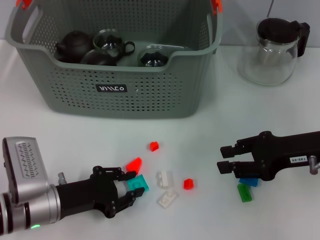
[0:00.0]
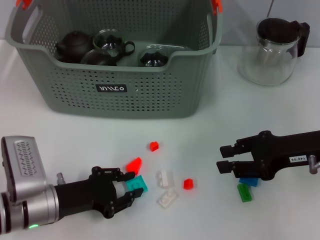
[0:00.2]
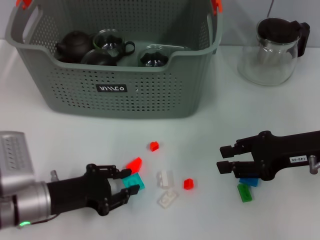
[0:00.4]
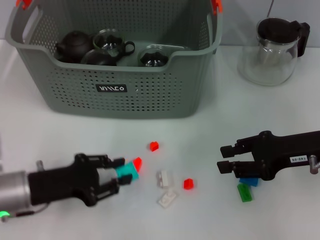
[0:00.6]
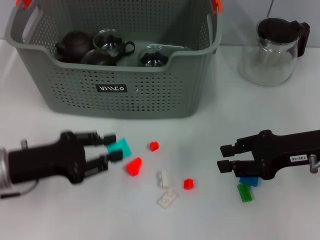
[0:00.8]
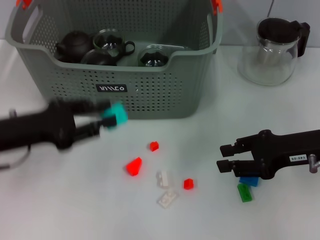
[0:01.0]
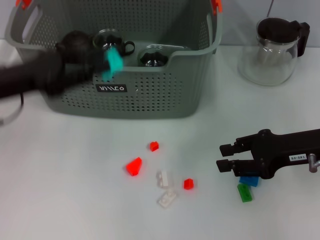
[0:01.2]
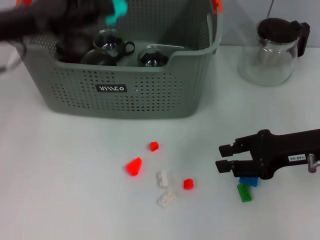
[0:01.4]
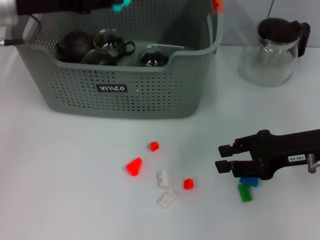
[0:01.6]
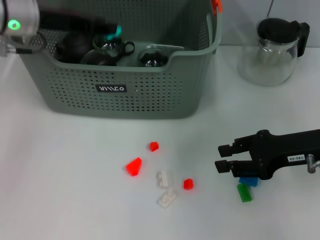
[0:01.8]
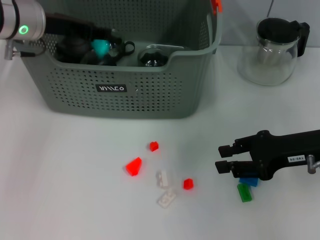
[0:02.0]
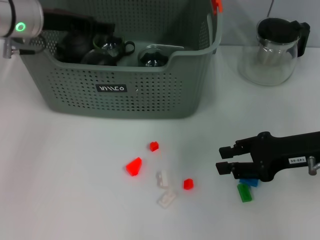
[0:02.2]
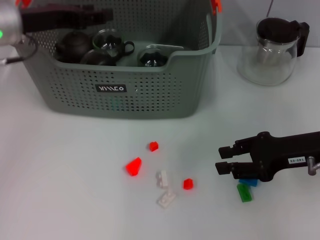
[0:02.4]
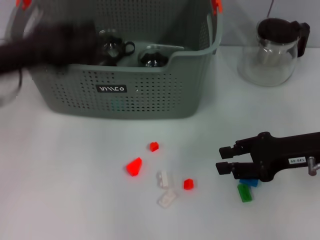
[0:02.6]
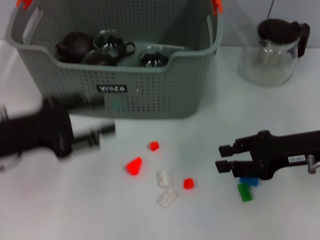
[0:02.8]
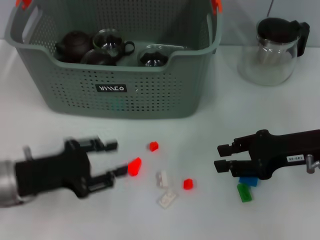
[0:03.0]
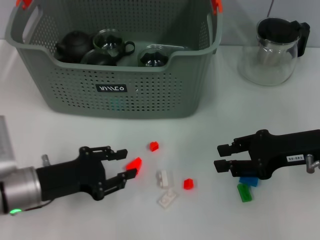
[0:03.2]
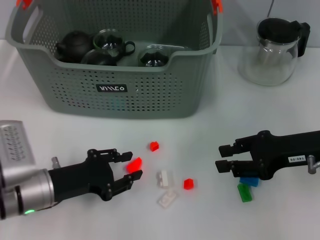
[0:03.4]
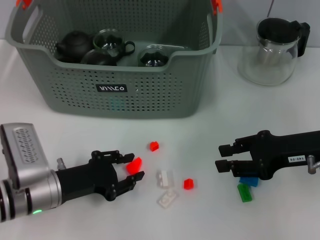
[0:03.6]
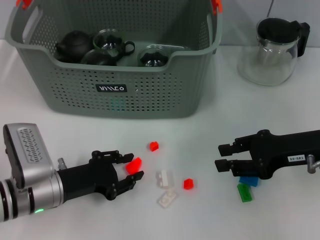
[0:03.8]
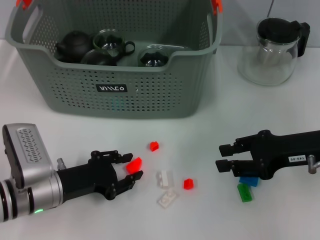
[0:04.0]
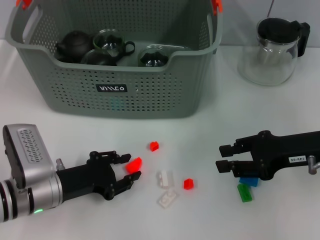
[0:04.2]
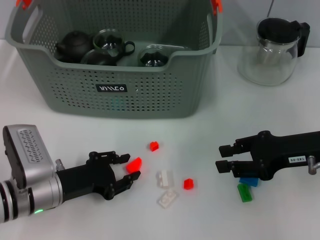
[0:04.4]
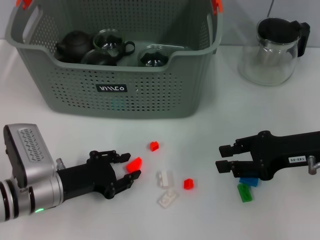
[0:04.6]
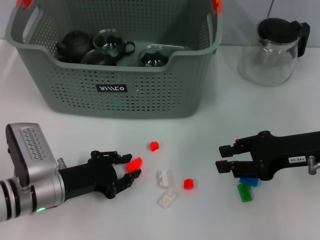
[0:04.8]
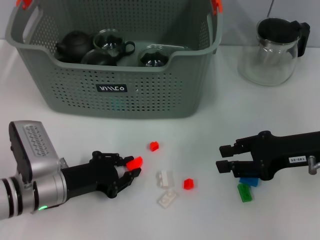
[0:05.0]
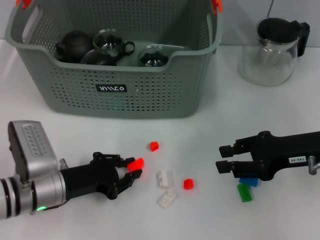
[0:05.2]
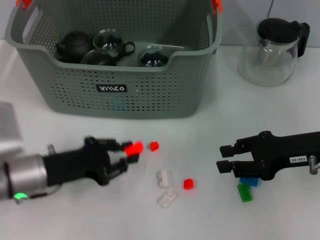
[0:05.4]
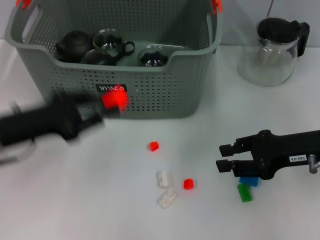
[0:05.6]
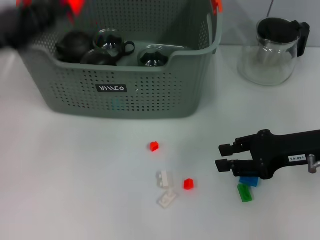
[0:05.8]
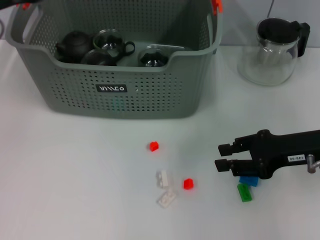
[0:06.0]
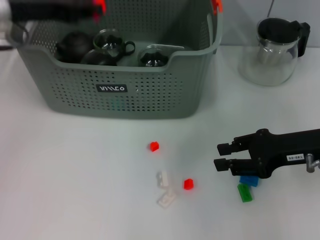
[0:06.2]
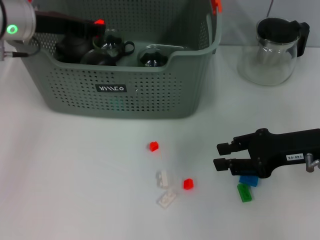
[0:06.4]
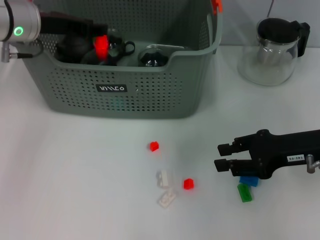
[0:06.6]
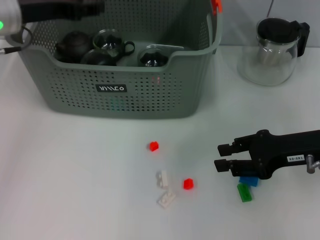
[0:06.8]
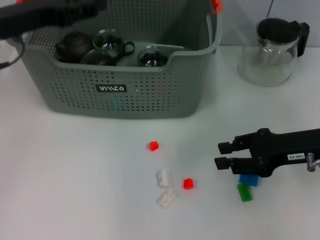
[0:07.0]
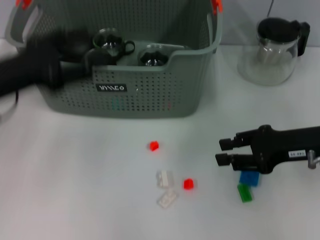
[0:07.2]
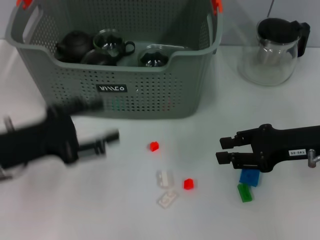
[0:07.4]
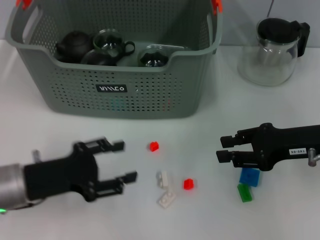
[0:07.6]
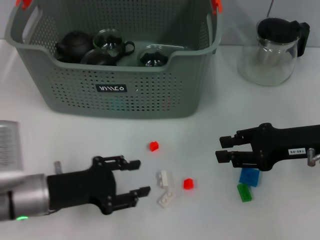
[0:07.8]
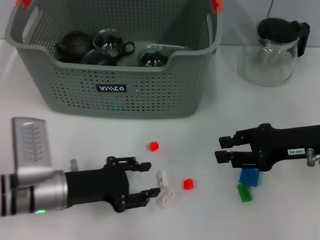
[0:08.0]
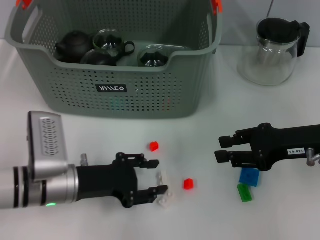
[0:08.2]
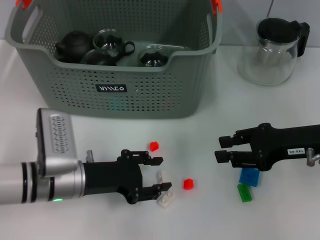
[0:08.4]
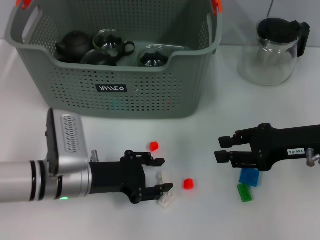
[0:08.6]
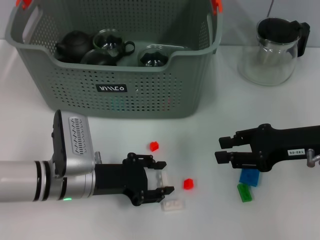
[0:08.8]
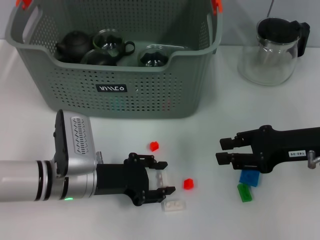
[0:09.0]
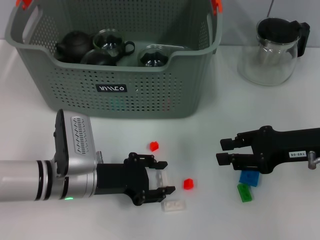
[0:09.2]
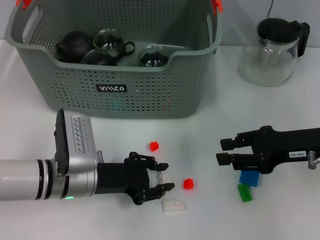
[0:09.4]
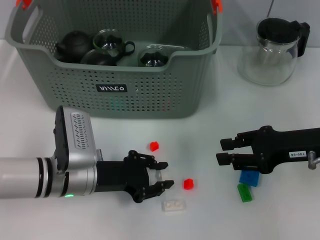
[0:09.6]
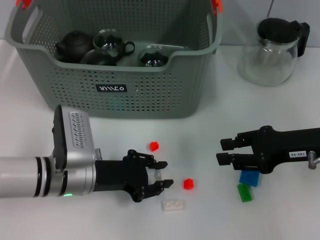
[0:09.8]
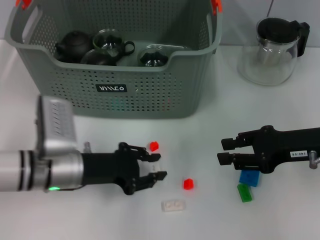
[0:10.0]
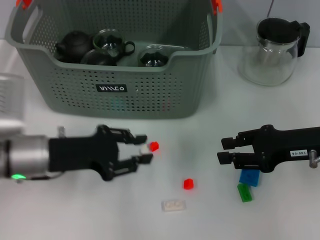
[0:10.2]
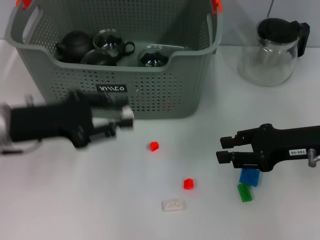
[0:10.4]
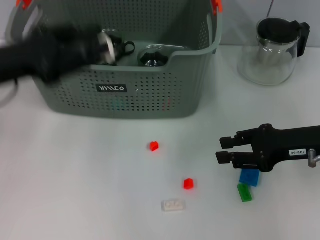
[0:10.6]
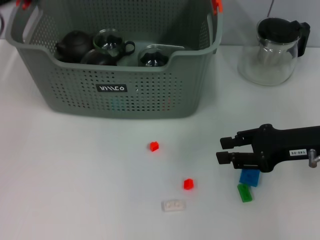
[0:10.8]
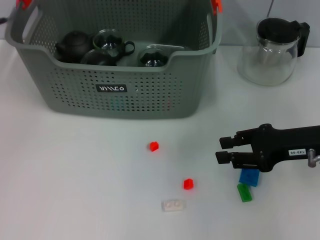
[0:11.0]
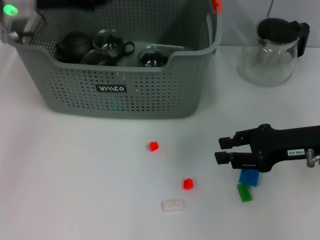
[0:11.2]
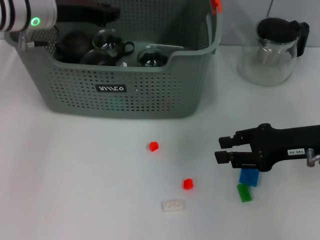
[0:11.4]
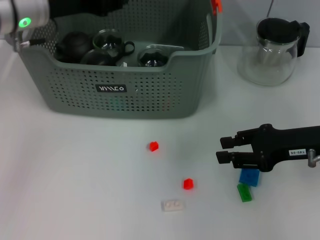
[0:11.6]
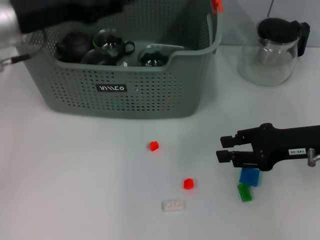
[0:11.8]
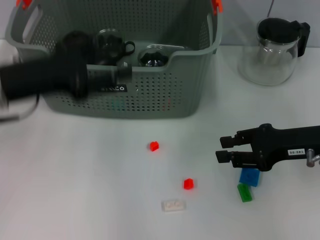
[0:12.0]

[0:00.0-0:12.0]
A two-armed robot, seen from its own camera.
Task of the whole recording: pick up the teacup on the table and place it into the storage bin, pick up the block on the table and place it into the storage bin.
Step, 0.0 to 2.2 s: Place the light blue block in the storage box with left gripper.
Step, 2.4 to 5.0 s: Grasp the orange block with left gripper.
Step, 5.2 to 6.6 s: Place the orange block in the storage box with left gripper.
Step, 6.8 to 9.4 s: Grasp the white block with left gripper.
Step, 9.6 to 11.0 s: Place the white block in the storage box with left gripper.
0.0 to 1.6 s: The left gripper heads upward and forward, covering about 25 cm.
1.6 to 3.0 s: The left gripper moves backward and downward, approximately 20 cm.
3.0 to 4.4 s: The left gripper heads downward, covering about 5 cm.
4.4 to 6.0 s: The left gripper is displaced upward and forward by roughly 25 cm.
6.0 to 7.6 s: The left gripper shifts some 20 cm downward and backward, and opens its fingers.
7.6 to 9.0 s: The left gripper heads to the right, covering approximately 10 cm.
9.0 to 10.4 s: The left gripper travels upward and to the left by about 15 cm.
10.4 to 12.0 s: The left gripper reaches about 15 cm forward, then returns.

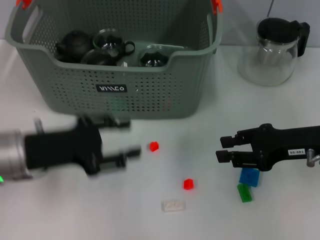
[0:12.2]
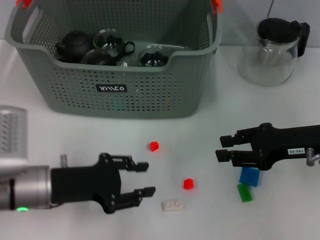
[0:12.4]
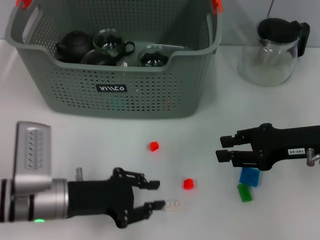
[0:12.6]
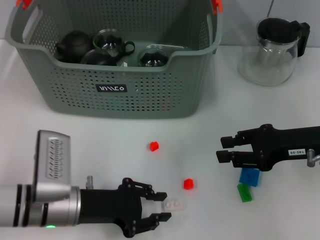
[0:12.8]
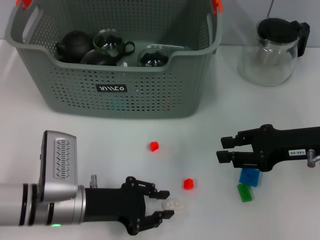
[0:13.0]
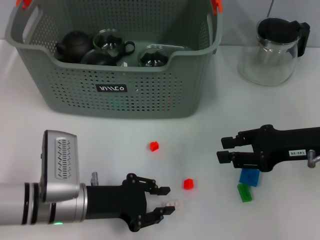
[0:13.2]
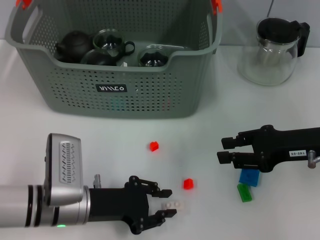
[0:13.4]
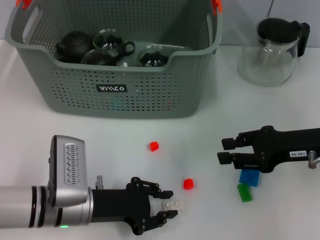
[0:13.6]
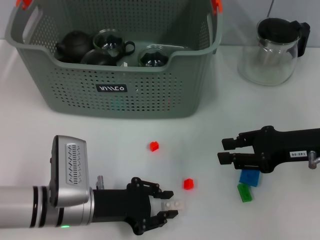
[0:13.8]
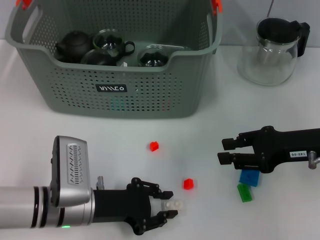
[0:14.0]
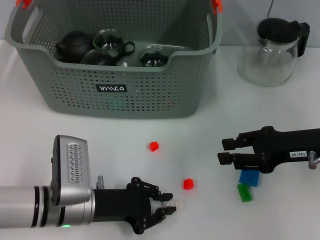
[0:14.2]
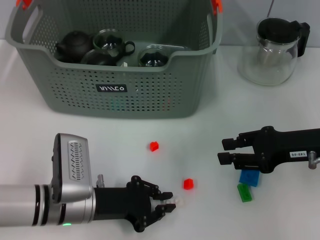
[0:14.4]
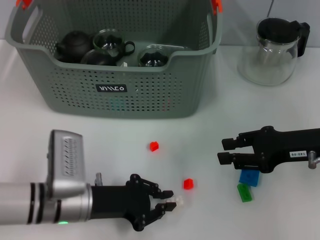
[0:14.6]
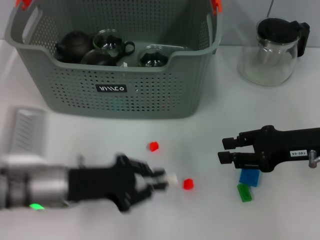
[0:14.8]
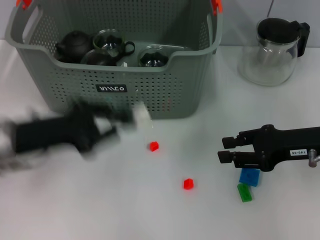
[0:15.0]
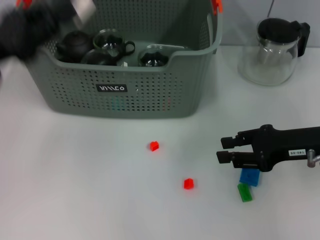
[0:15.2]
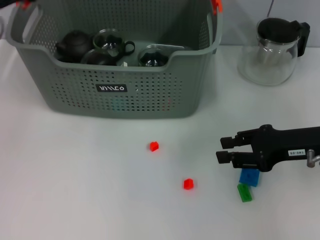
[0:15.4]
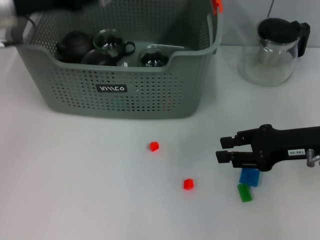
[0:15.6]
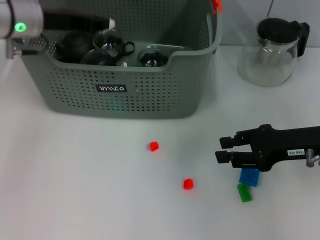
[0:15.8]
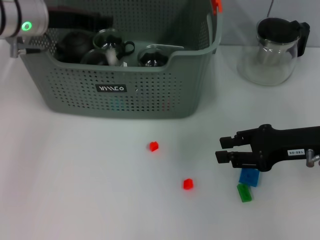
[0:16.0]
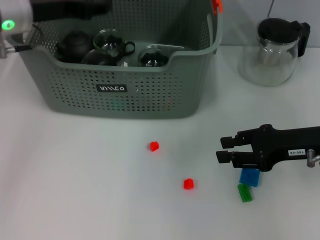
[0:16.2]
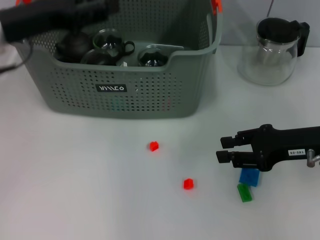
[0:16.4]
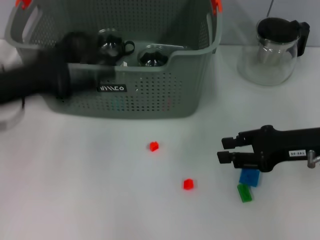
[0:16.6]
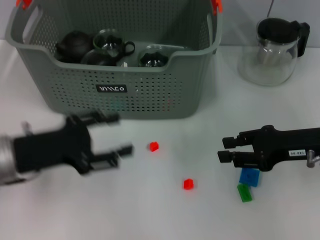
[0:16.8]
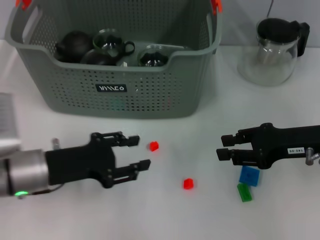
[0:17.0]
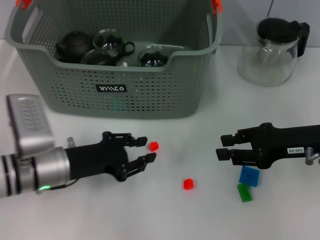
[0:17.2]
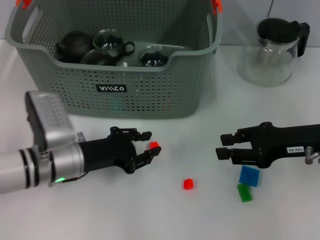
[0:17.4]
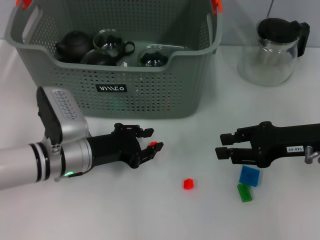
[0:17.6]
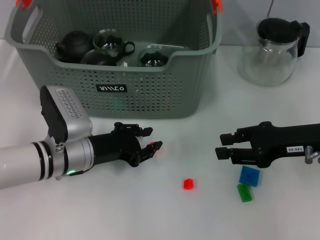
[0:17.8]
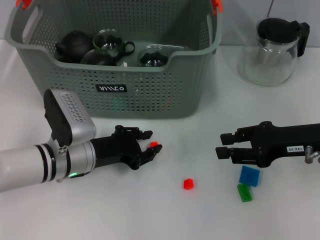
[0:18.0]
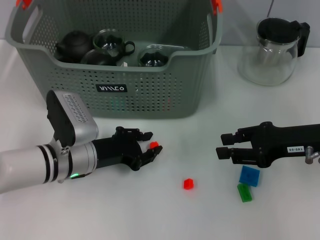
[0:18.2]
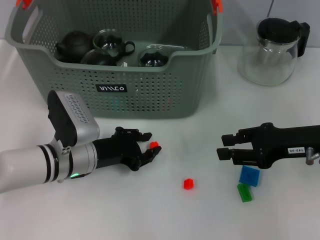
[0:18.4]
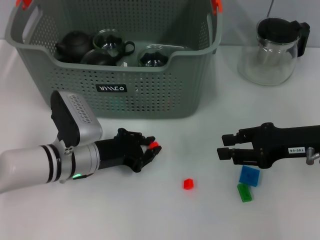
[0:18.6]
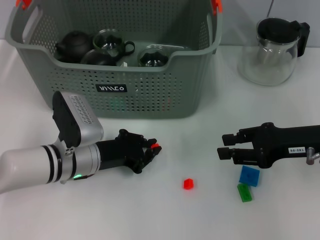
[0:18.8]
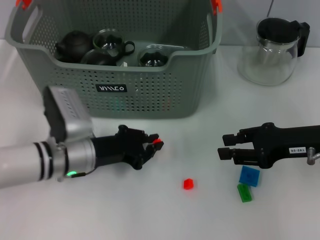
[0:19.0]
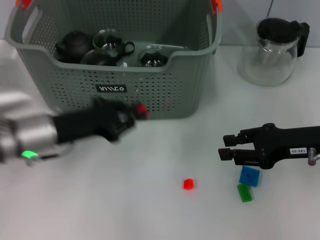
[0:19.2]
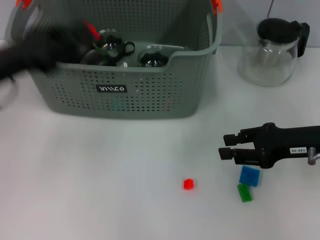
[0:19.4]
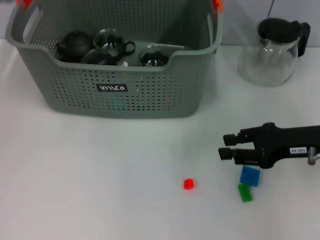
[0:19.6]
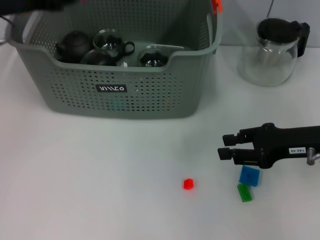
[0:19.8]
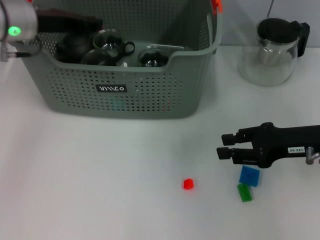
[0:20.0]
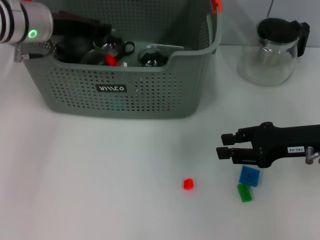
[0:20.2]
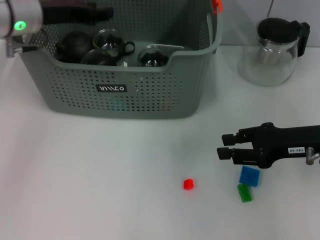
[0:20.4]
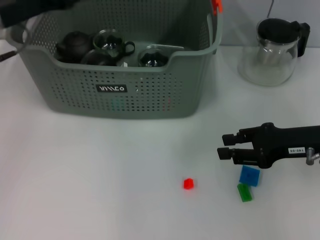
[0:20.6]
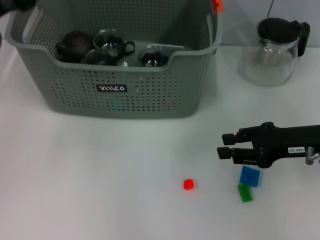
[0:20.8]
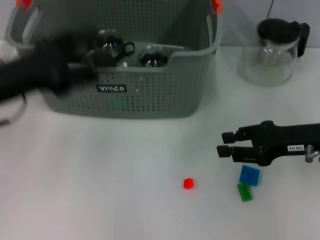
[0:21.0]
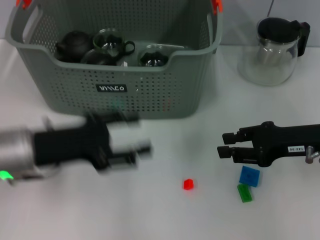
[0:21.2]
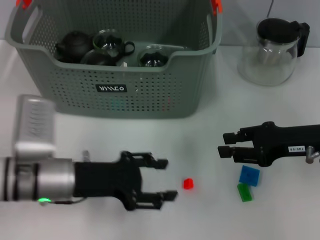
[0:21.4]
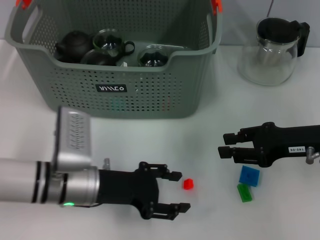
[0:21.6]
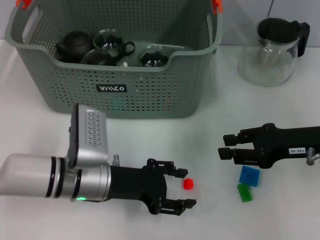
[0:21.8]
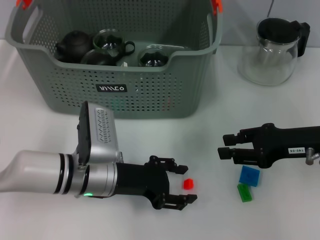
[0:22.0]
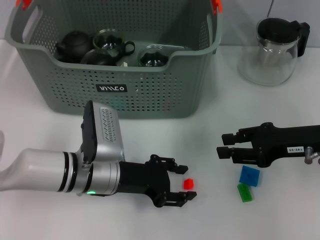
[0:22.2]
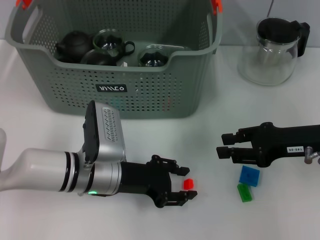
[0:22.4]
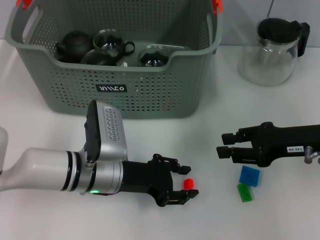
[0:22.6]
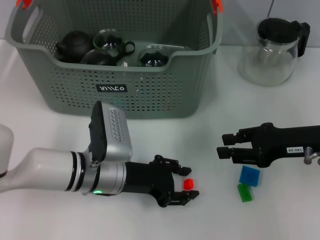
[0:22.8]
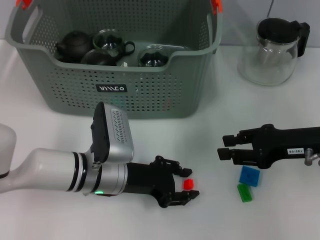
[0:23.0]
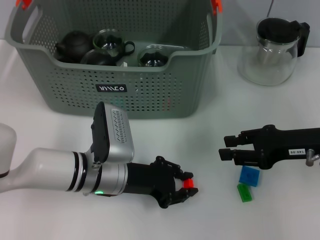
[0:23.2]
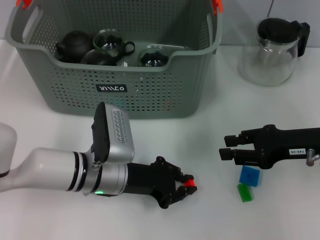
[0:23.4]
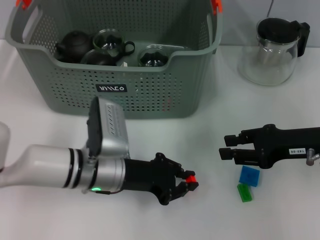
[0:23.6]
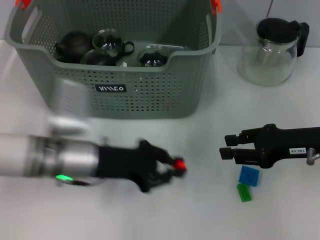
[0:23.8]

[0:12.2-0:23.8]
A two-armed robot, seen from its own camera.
Task of the whole recording: pick up the teacup on the table and place it into the storage bin, pick up the block on the table and place it into the storage bin.
Step, 12.2 to 14.2 s: Grasp the white block with left gripper.
Step, 14.4 to 16.0 s: Place the white block in the storage box with left gripper.
Step, 16.2 to 18.6 s: Grasp the orange block with left gripper.
Step, 18.8 to 20.2 s: Place the orange block in the storage box with left gripper.
Step, 20.4 to 23.2 s: Grasp the orange block with left gripper.
12.2 to 13.6 s: The left gripper moves downward and to the right, some 10 cm, and closes up.
13.6 to 15.0 s: The left gripper goes about 15 cm upward and to the left.
15.0 to 16.6 s: The left gripper reaches approximately 15 cm forward, then returns, and opens up.
16.6 to 18.0 s: The left gripper goes roughly 15 cm downward and to the right.
18.0 to 19.4 s: The left gripper goes approximately 20 cm upward and to the left.
19.4 to 21.0 s: The left gripper reaches some 15 cm forward, then returns, and opens up.
21.0 to 22.4 s: The left gripper moves to the right and downward, roughly 20 cm.
22.4 to 23.8 s: The left gripper ends up approximately 5 cm from where it was, and closes up.
